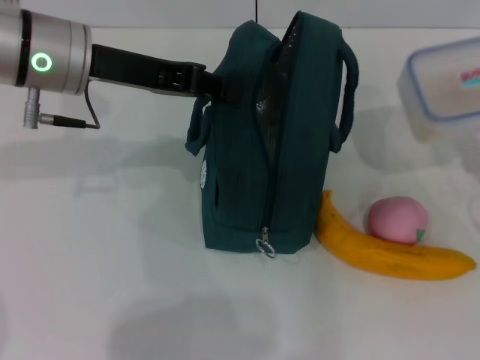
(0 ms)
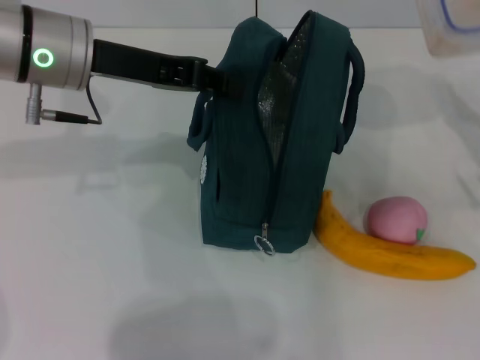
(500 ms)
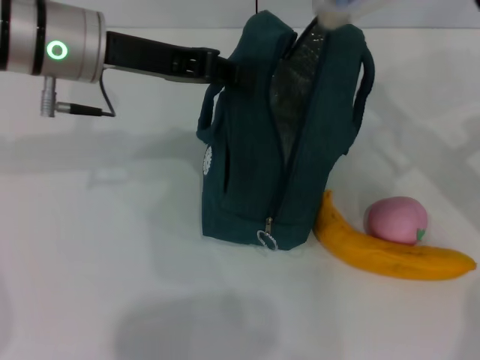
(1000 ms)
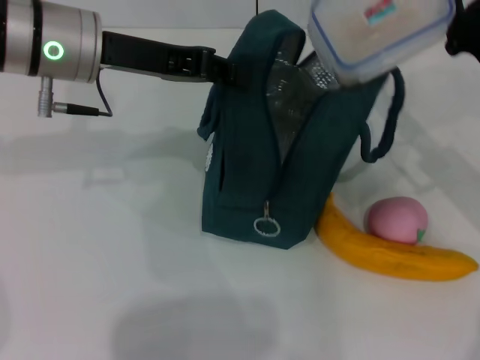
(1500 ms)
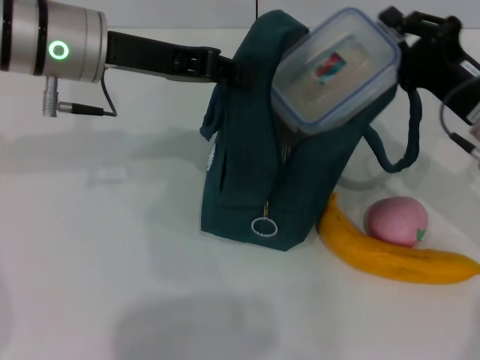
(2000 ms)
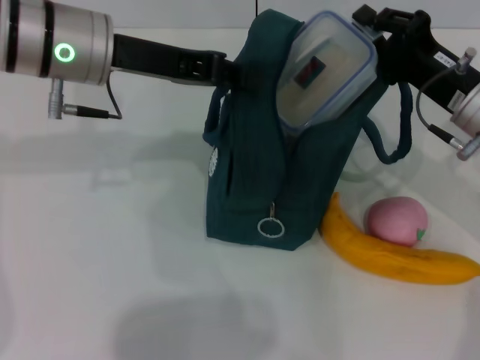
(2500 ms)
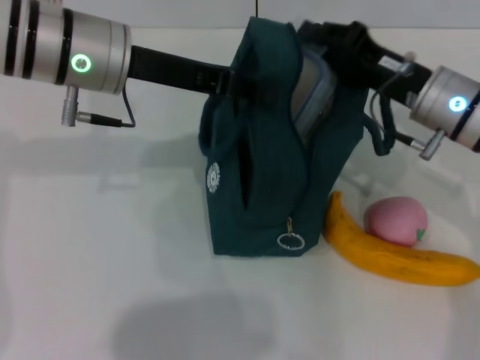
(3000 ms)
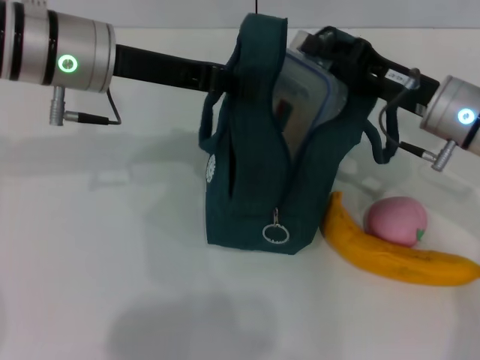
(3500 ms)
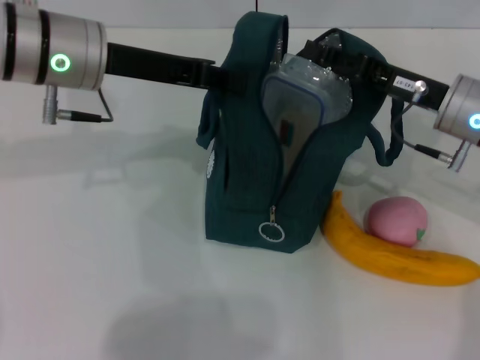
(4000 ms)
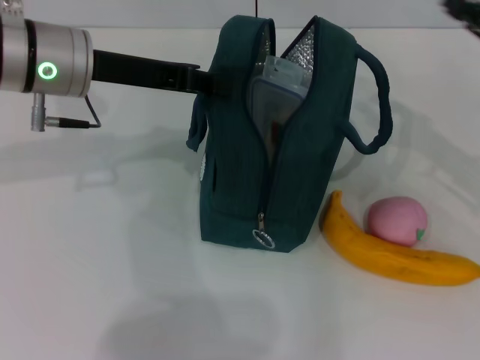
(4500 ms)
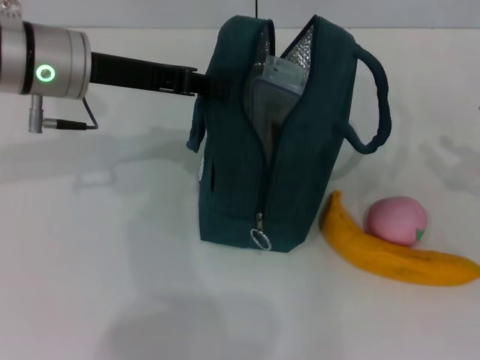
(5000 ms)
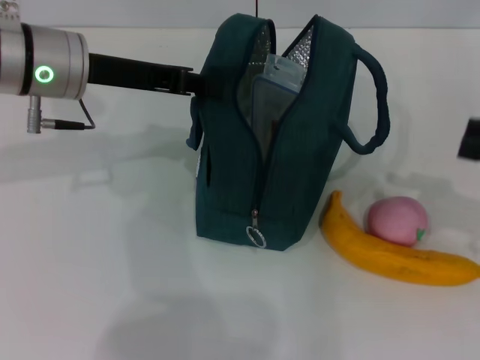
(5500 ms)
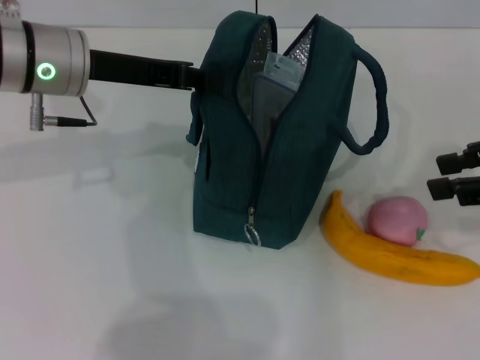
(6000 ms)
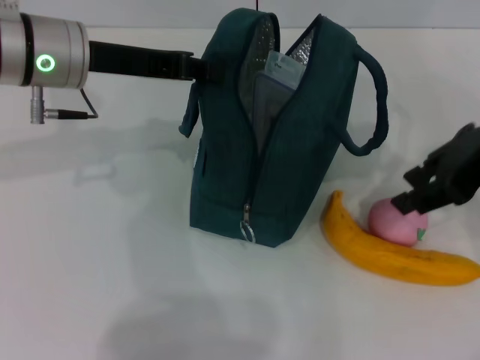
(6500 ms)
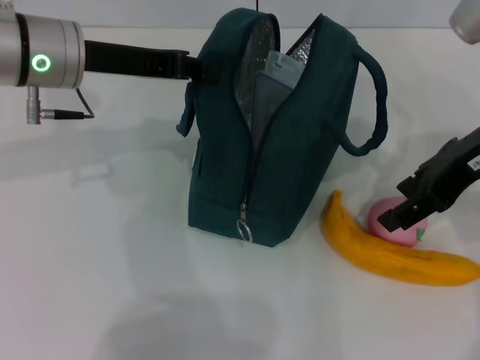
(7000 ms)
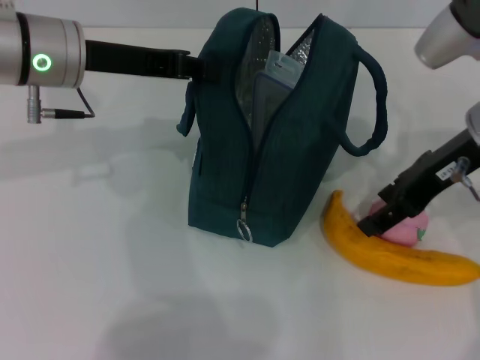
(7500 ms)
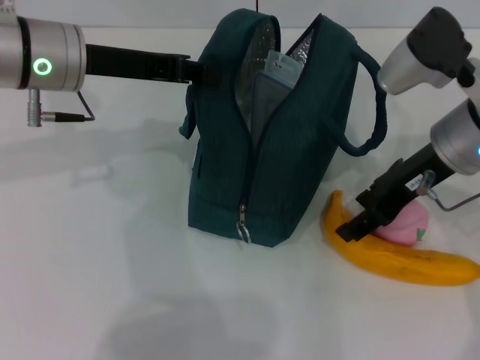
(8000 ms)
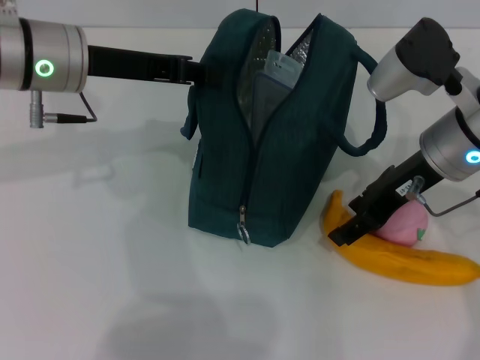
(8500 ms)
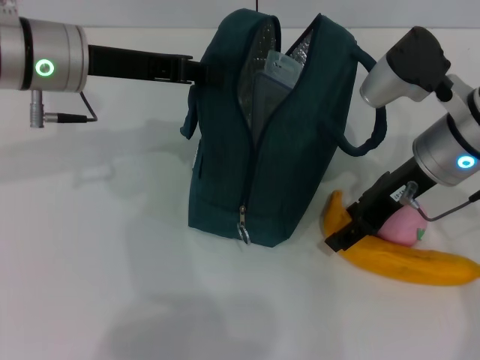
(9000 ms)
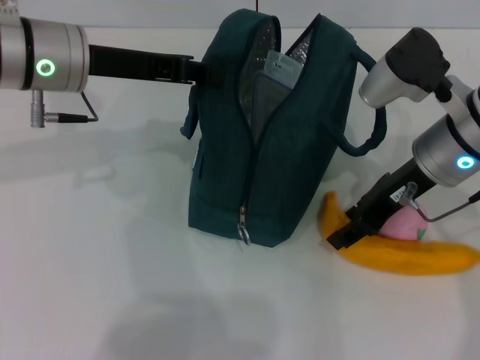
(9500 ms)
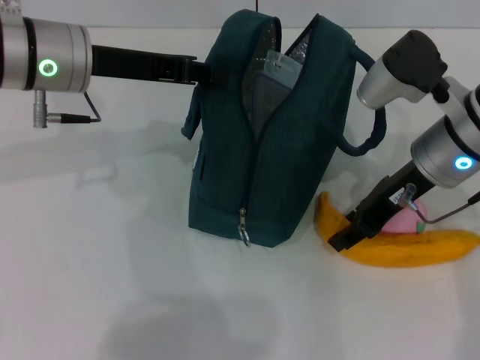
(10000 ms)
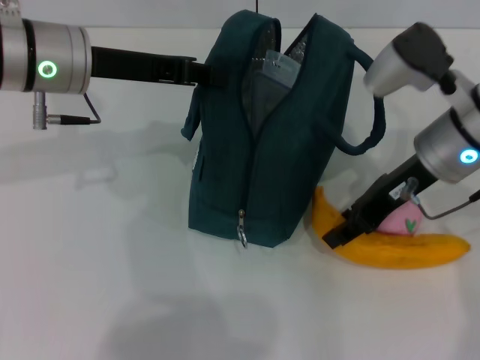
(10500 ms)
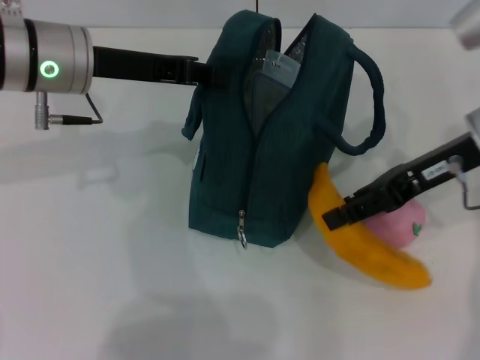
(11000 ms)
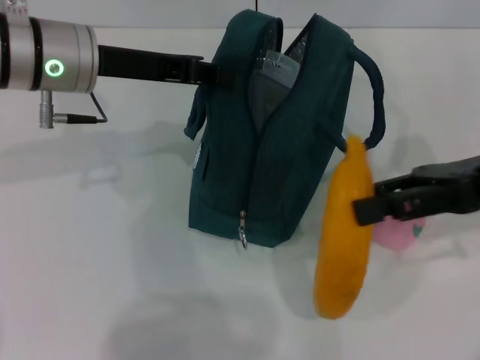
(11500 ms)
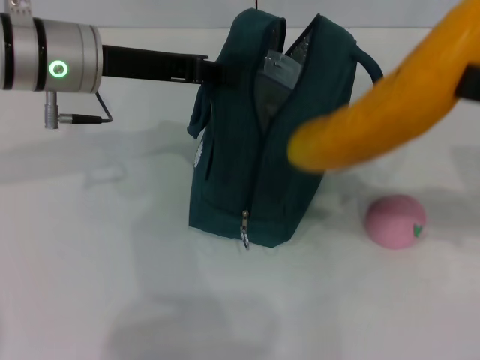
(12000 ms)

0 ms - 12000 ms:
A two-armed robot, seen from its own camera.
Step, 0 ms - 4000 ms: Place the lunch box into the lunch bag with your right hand.
Step, 4500 ms - 10000 ms: Take the banana with your right hand.
0 ms - 2000 ms: The right gripper goes approximately 10 cm to the left and forward.
4000 ms - 6000 ms: The right gripper is displaced upward, to the right and backward by approximately 15 cm.
6000 ms - 8000 ms: The right gripper is displaced to the left and forward by about 15 cm, and opens.
8000 ms - 10000 ms: The grippers stay close to where they were, moving slightly.
10000 ms - 12000 ms: The right gripper heads to the right, backward and upward, covering about 15 cm.

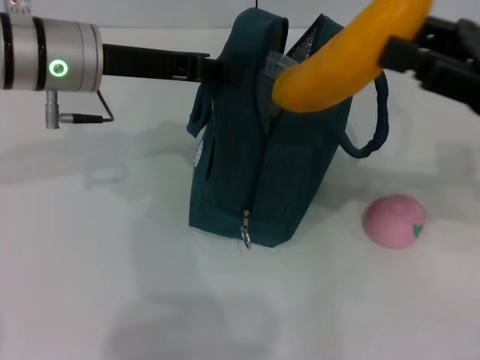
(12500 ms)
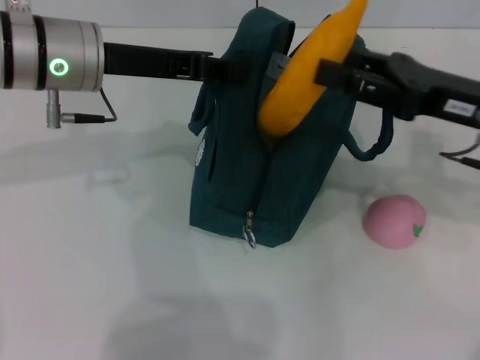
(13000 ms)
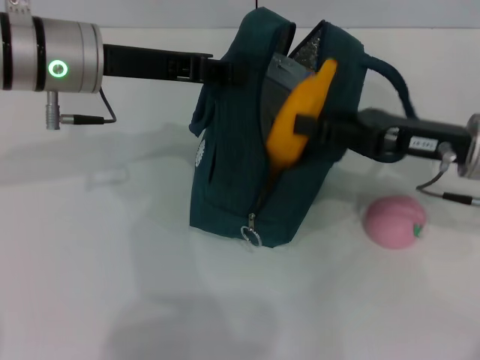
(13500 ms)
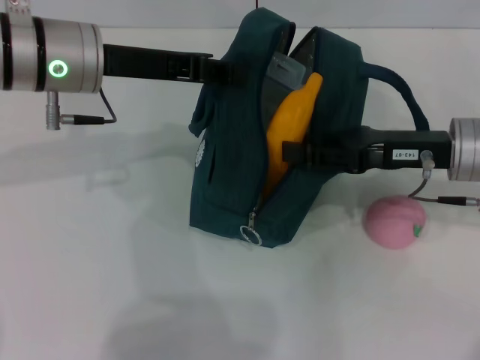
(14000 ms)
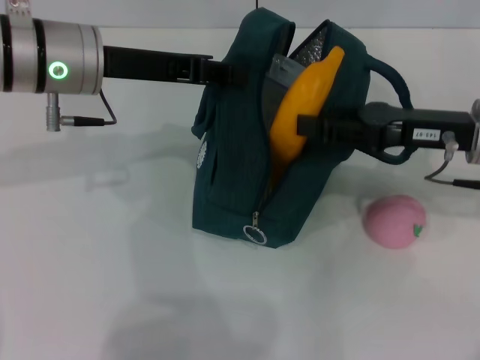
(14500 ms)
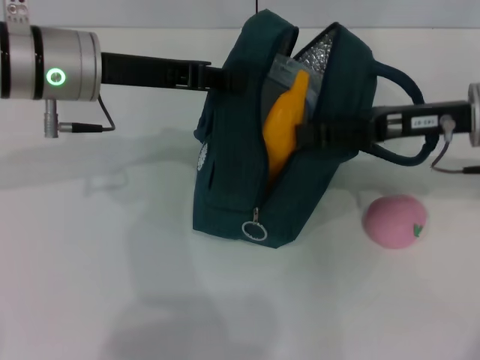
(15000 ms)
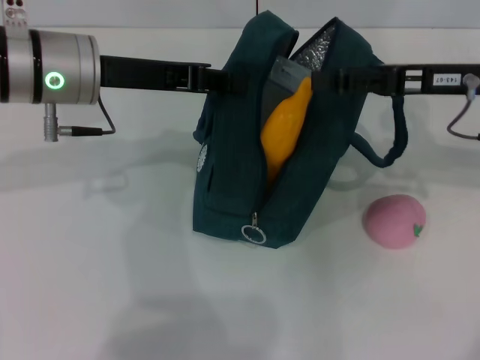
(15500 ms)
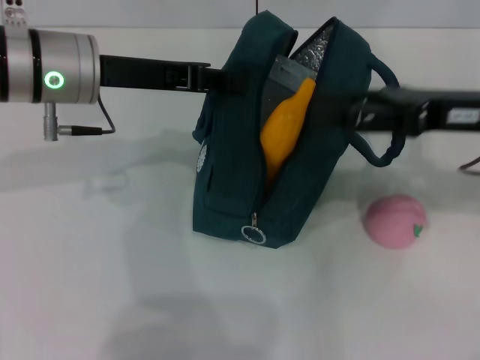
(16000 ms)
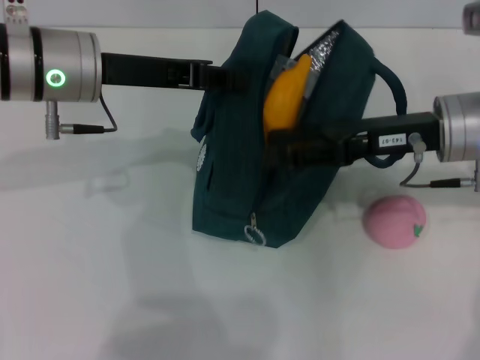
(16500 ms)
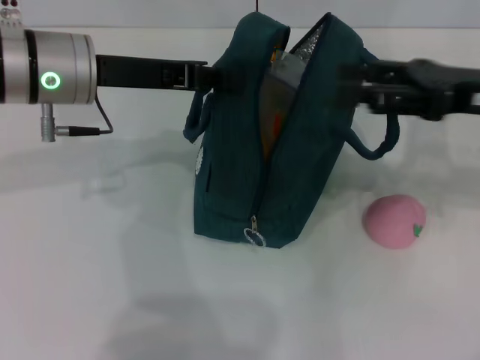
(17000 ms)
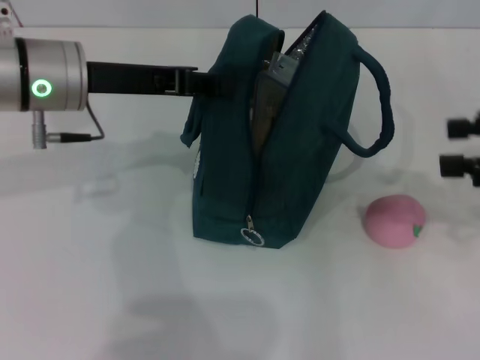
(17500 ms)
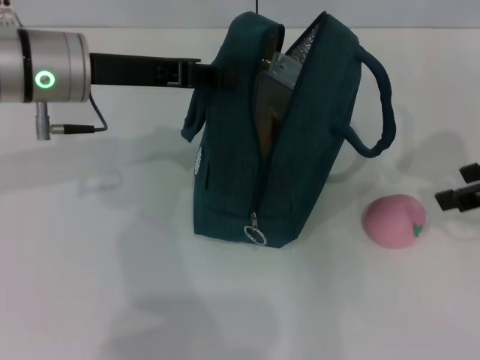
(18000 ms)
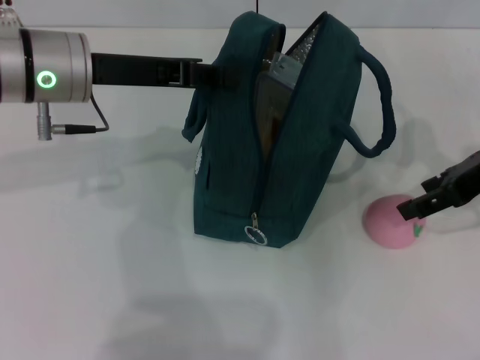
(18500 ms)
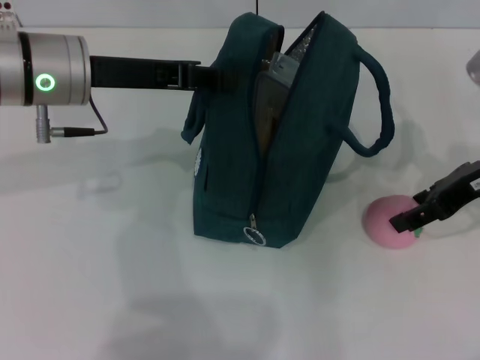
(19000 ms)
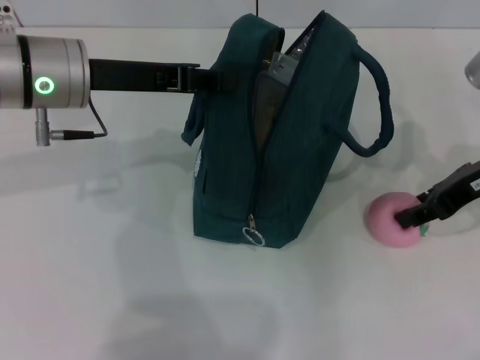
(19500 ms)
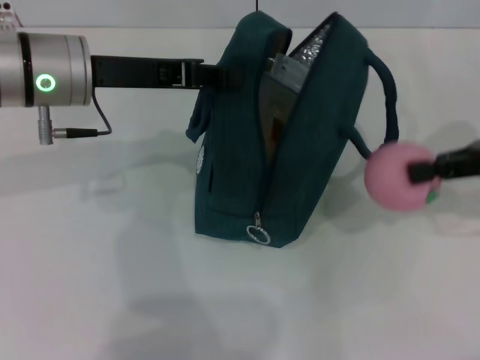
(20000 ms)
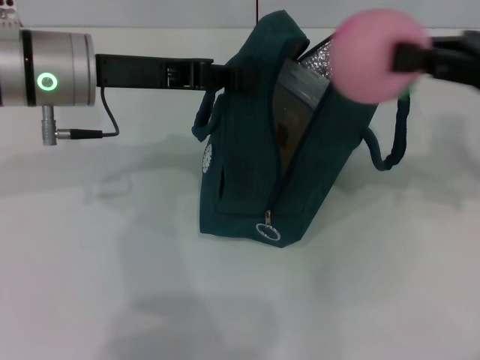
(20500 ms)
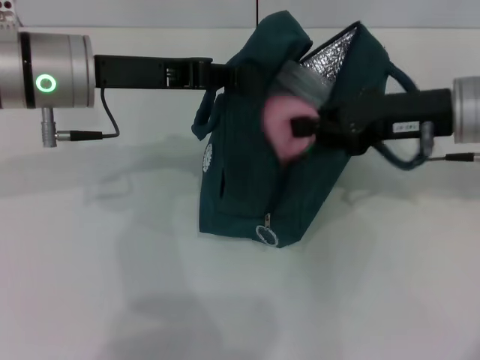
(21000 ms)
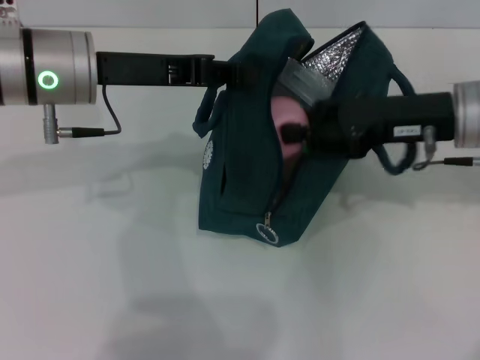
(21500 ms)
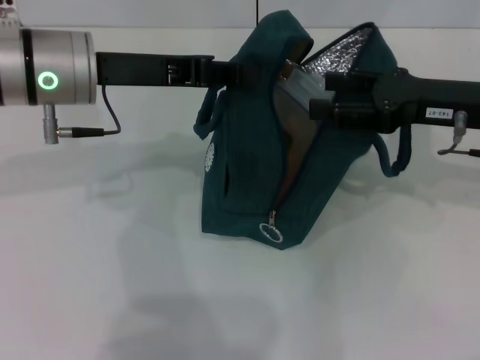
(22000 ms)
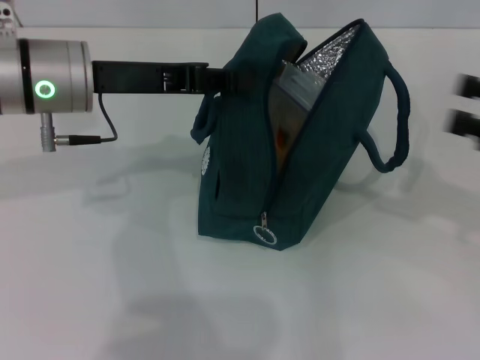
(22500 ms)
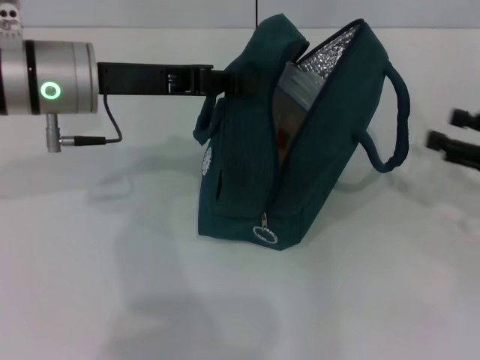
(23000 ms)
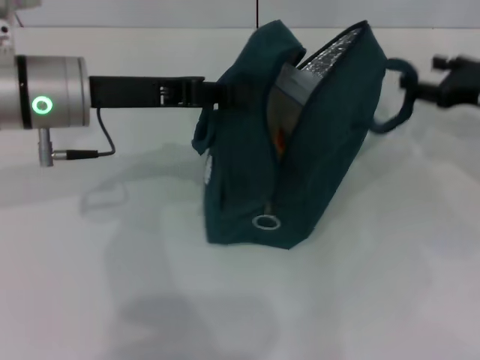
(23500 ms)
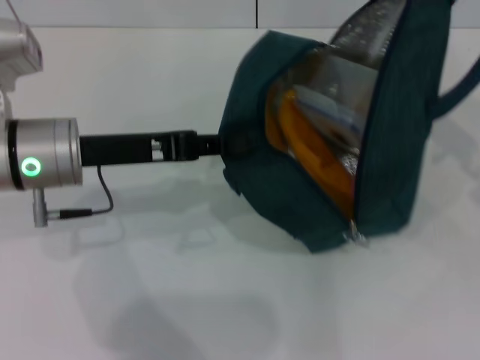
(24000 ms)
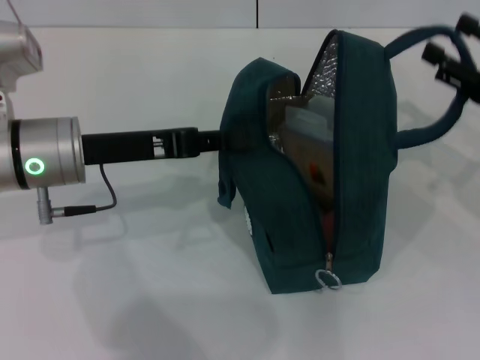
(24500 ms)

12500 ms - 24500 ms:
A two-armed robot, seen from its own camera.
Step, 12500 ms - 15500 ms: Put the banana into the lunch bag with your right hand.
Step, 16000 ms - 19000 ms: Grab the peach with your right hand.
12500 ms - 14500 ms: The right gripper moves about 5 cm.
14500 ms - 16500 ms: The right gripper opens up.
16500 ms - 18500 ms: The right gripper heads to the right, covering roughly 5 cm.
18500 ms - 20500 ms: The right gripper closes up.
20500 ms - 22500 ms: The right gripper is displaced backward and to the right by about 10 cm, and opens.
22500 ms - 24500 ms: The left gripper changes place by about 5 cm.

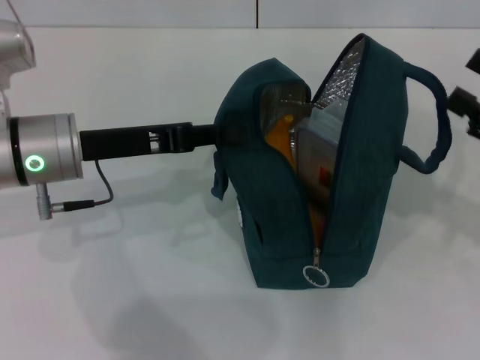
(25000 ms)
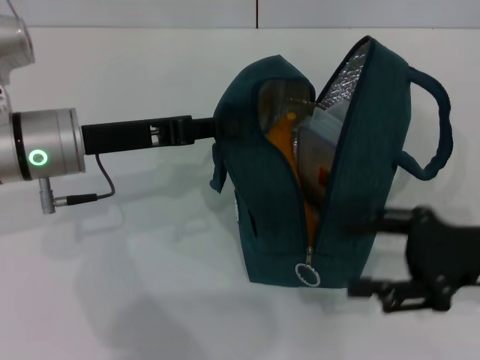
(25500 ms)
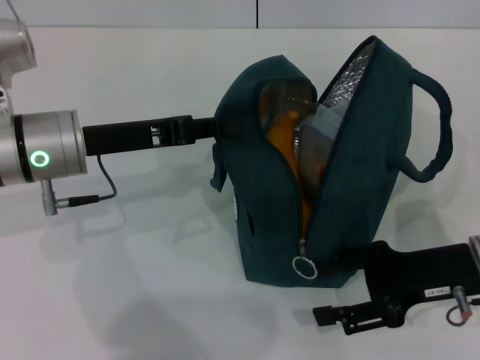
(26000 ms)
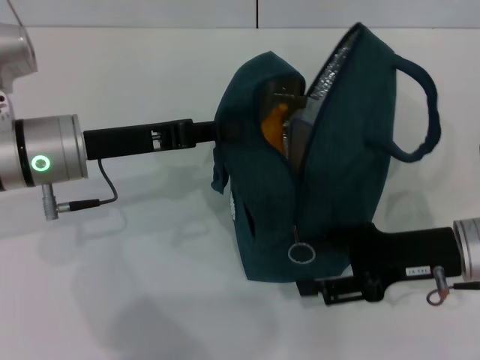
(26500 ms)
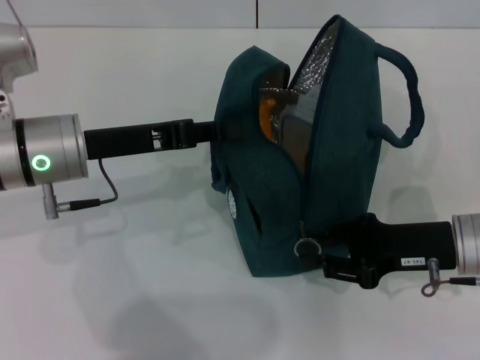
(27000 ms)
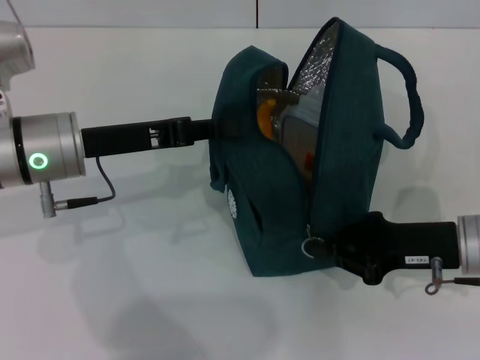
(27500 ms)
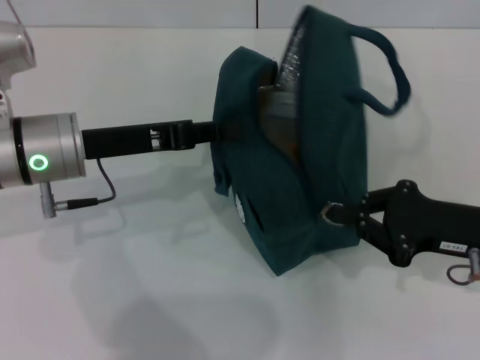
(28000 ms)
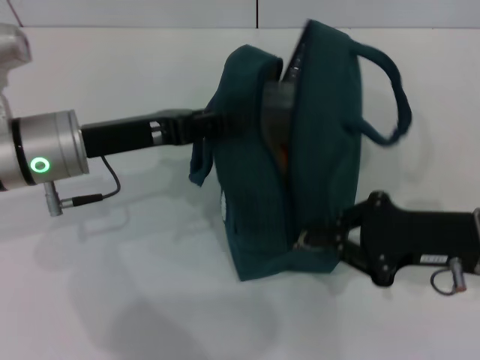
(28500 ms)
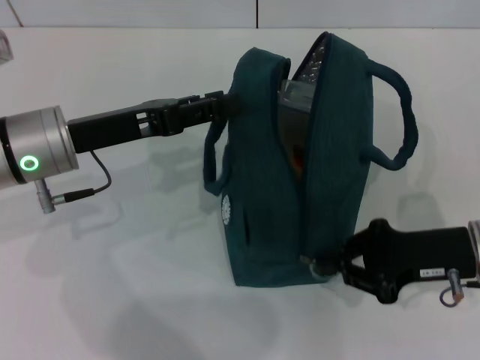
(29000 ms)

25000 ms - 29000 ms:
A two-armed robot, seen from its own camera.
25000 ms - 27000 ms: The right gripper travels to the left and downward by approximately 10 cm, and closes its fingers.
27000 ms - 29000 ms: The left gripper opens its fingers, while the right gripper closes its fingers.
